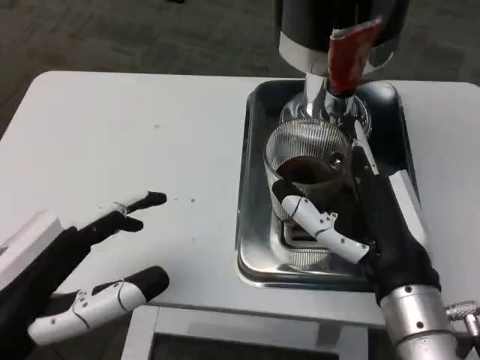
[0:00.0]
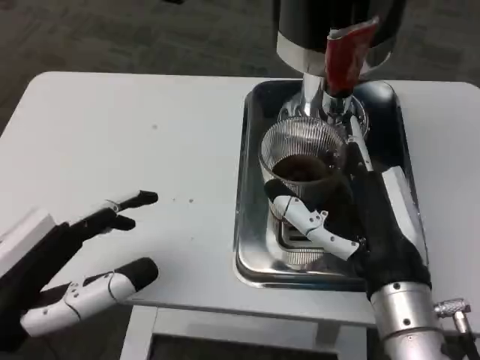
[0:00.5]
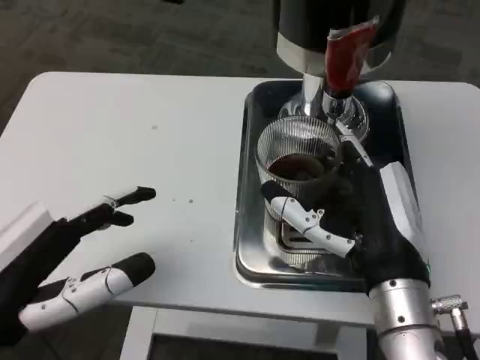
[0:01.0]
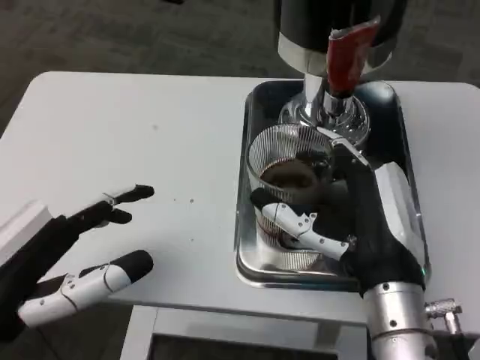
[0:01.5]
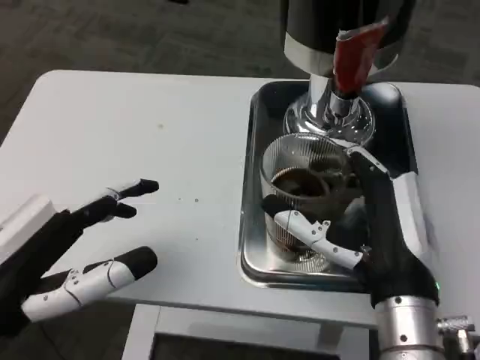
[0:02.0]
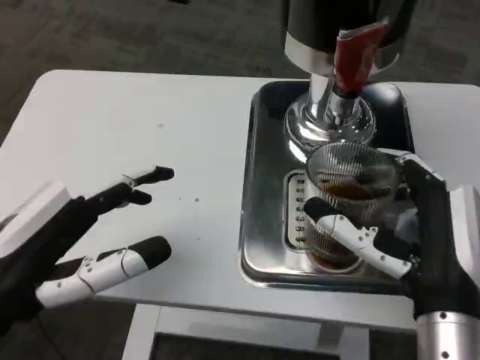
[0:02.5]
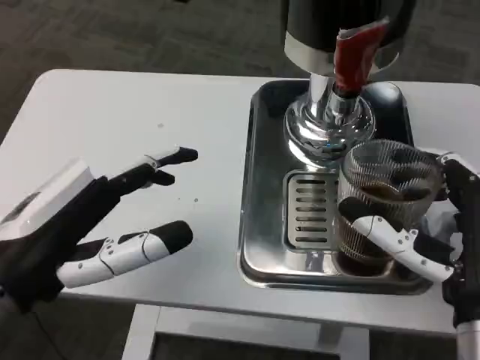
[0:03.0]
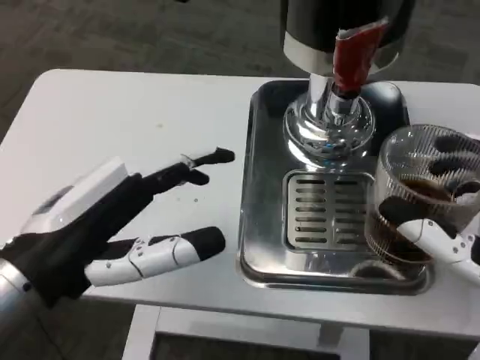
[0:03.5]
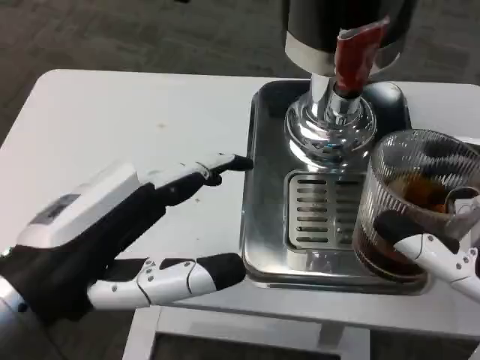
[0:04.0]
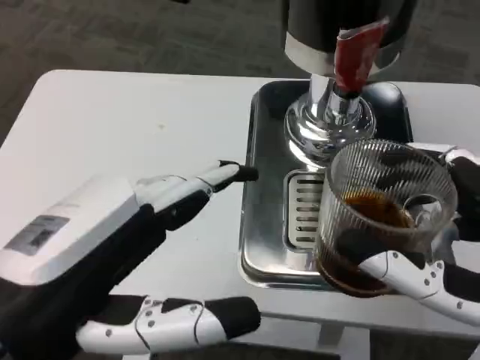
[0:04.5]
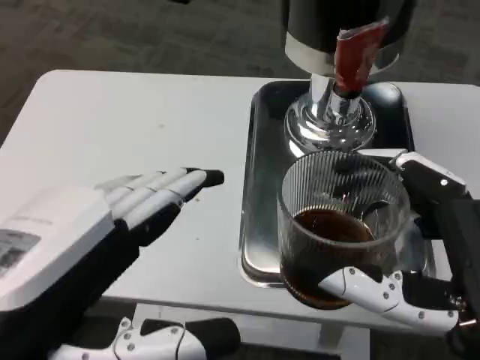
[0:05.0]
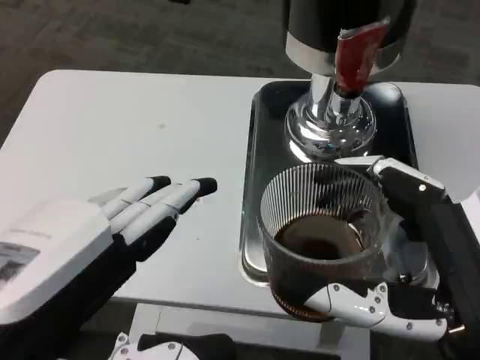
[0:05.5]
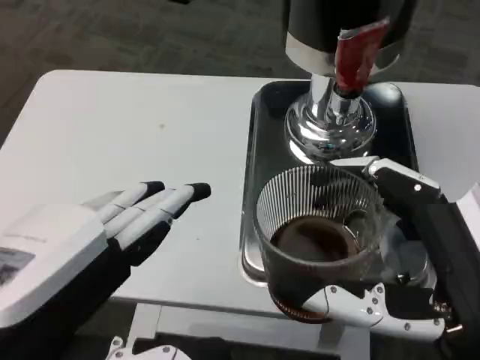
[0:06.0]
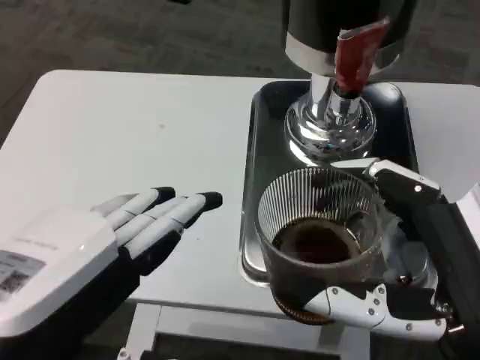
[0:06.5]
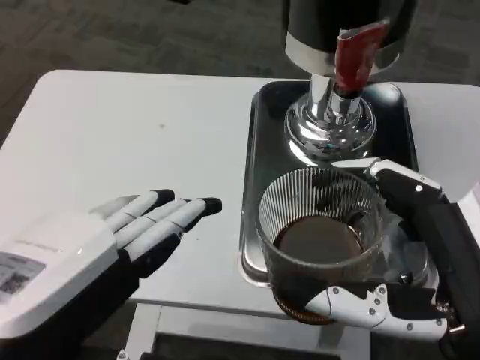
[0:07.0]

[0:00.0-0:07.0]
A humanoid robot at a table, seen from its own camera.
Task of the whole recording: Grasp the cup under the faucet to collect the drink, then remove the cup.
0:02.0 to 0:03.5: The right hand heads backward and to the right, covering some 10 cm; the left hand changes place by roughly 5 cm.
0:03.5 to 0:05.0: The left hand moves backward, some 10 cm.
